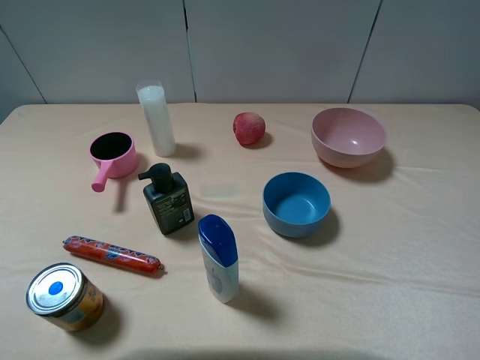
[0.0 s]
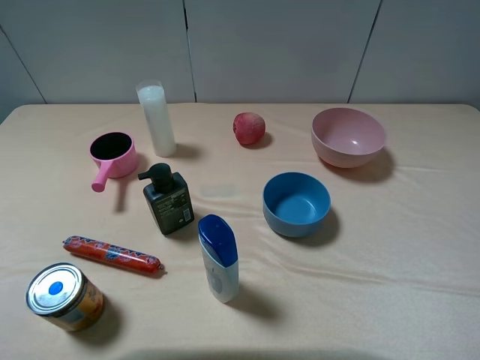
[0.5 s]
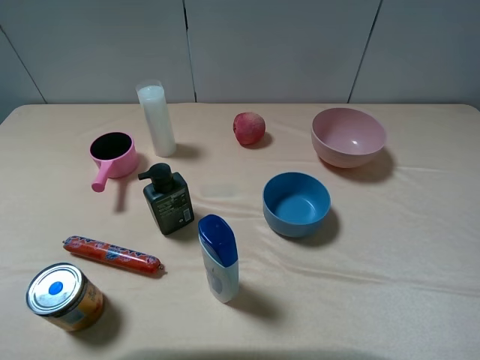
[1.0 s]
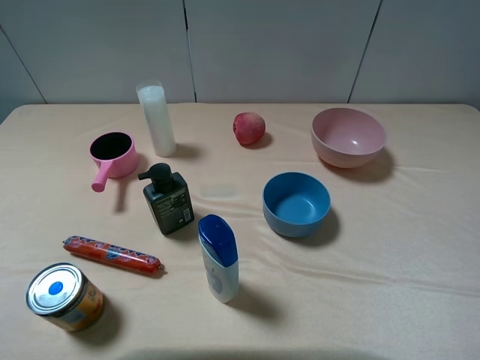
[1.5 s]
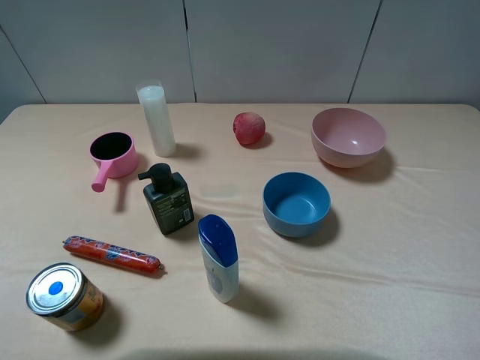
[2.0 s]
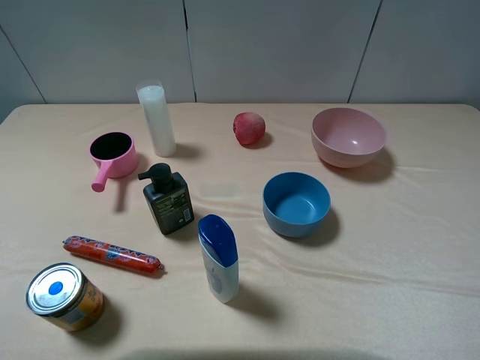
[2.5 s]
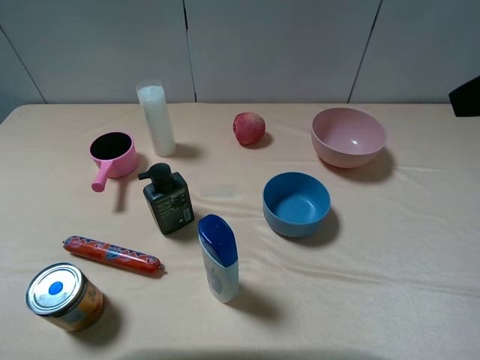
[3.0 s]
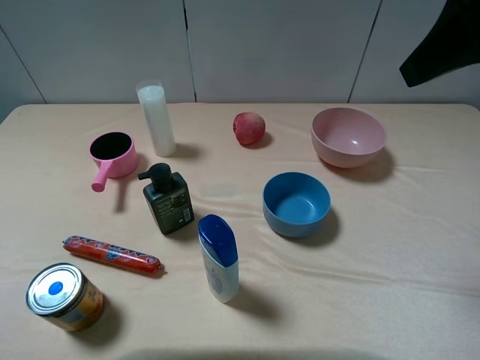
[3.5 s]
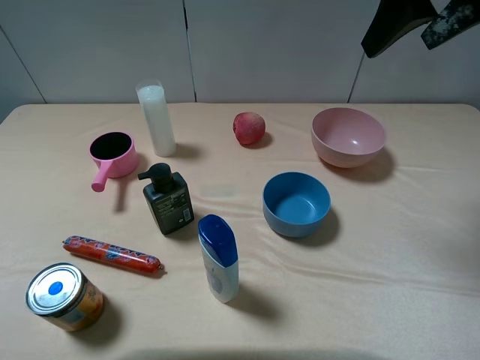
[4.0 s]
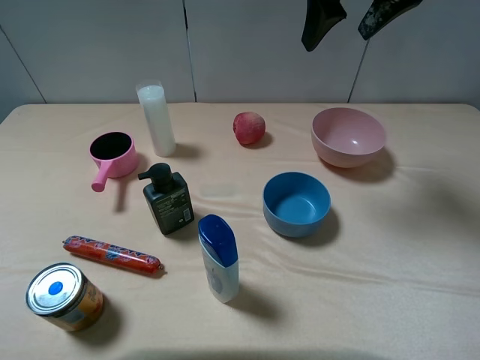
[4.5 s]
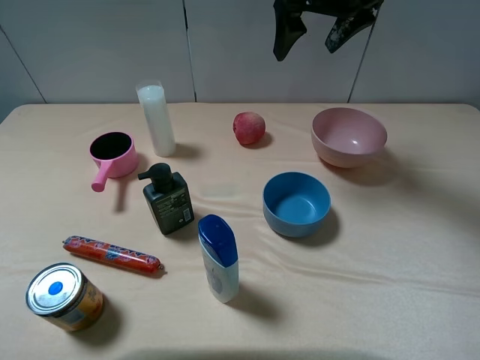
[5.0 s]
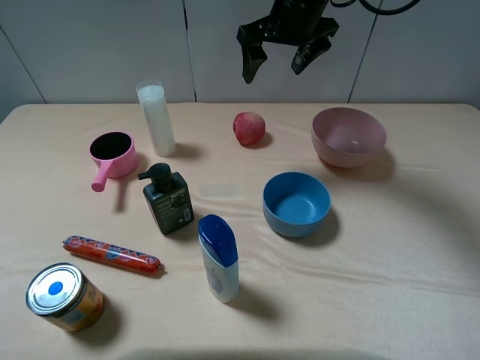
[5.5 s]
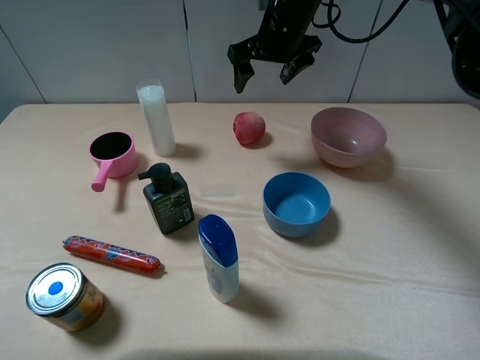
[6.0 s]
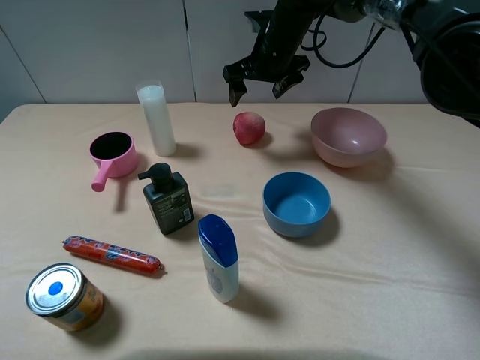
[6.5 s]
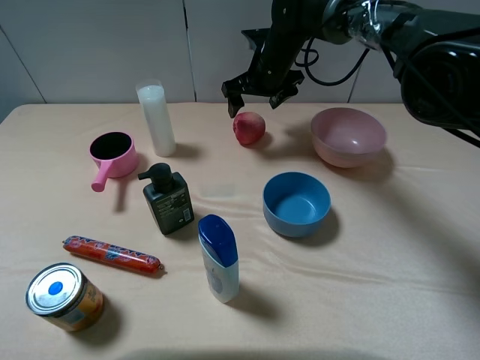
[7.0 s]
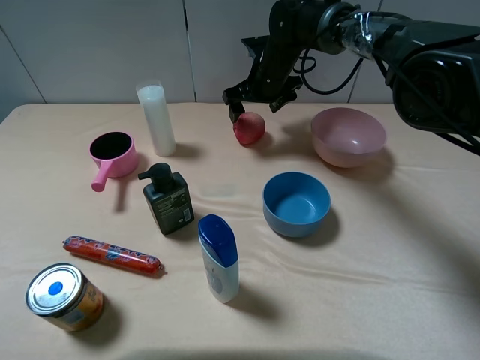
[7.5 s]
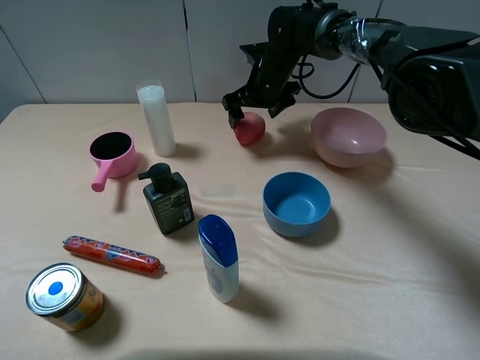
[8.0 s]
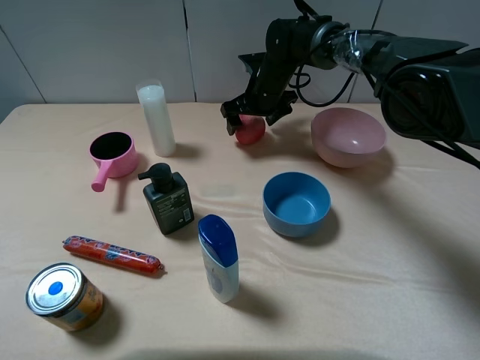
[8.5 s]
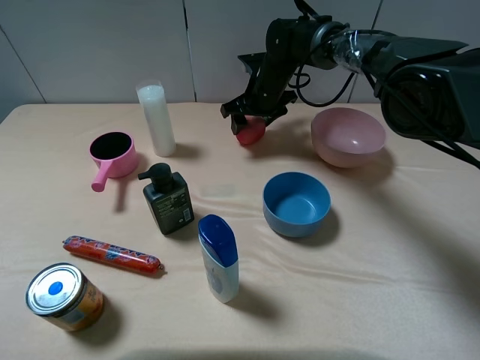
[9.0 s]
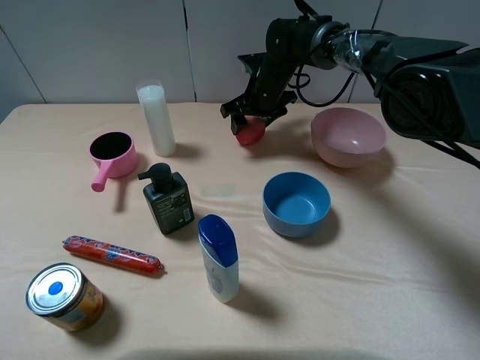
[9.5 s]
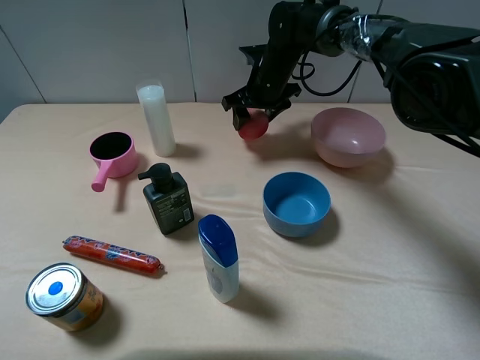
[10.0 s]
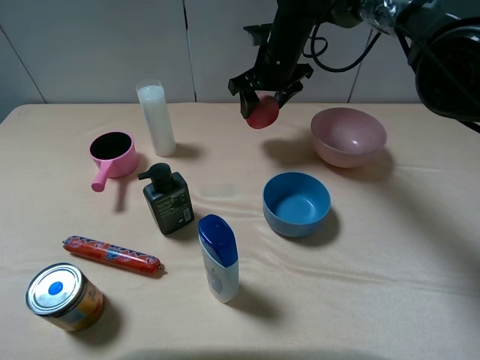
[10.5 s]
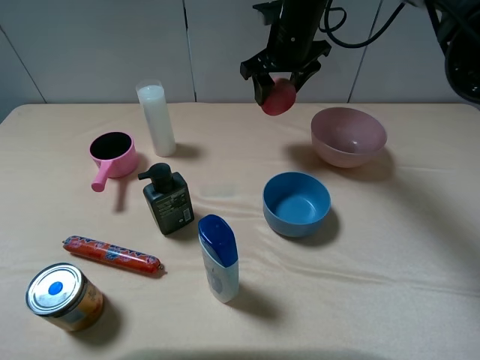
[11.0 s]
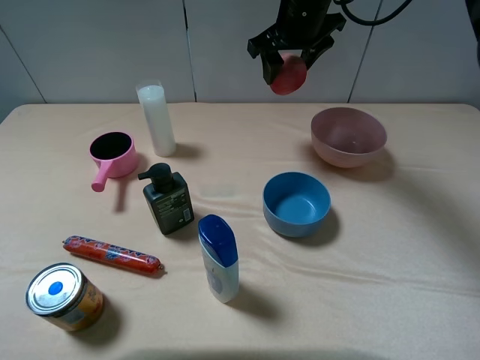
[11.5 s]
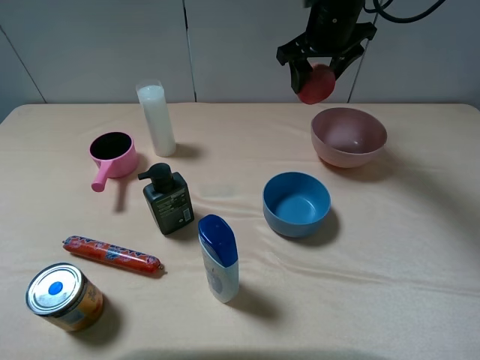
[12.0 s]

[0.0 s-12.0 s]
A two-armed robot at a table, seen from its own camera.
Task of the whole recording: pick up an item with a gripper and place it in a random container on the table.
Step, 0.0 to 9.5 s: Grasp the peach with the right gripper.
2.0 to 4.0 s: The right gripper is displaced forward by some 25 cm.
4.0 to 6.0 s: The right gripper travels forward, to the left and downward by about 25 cm.
6.0 to 8.0 s: The right gripper travels downward by roughly 10 cm.
8.0 to 10.0 s: The right gripper closes.
10.0 to 12.0 s: The right gripper goes about 15 cm upward and to the right.

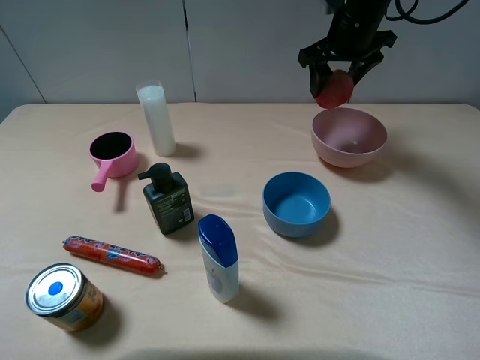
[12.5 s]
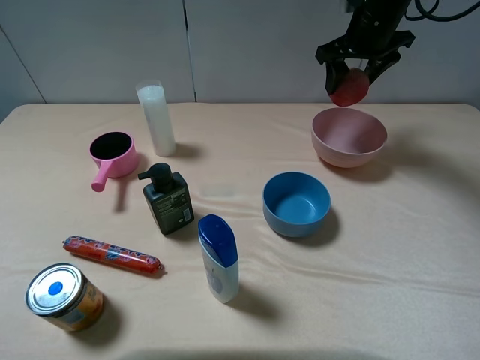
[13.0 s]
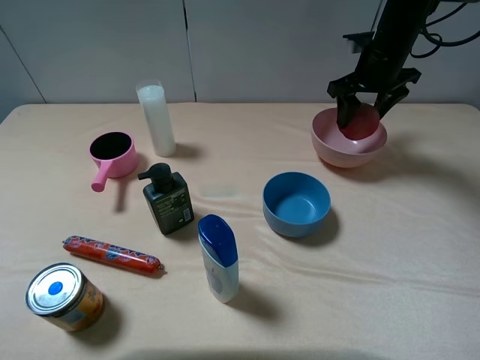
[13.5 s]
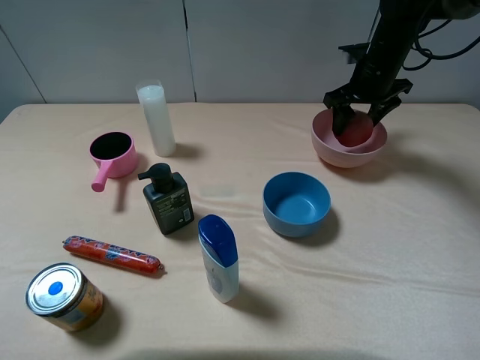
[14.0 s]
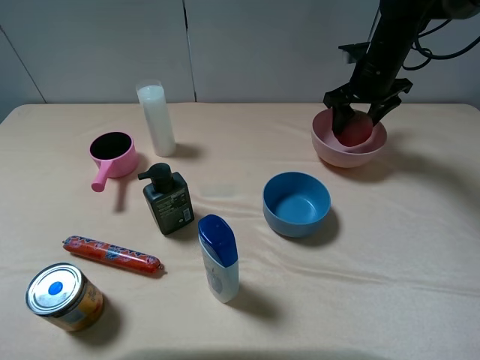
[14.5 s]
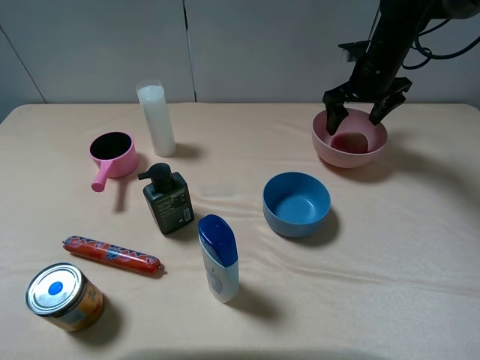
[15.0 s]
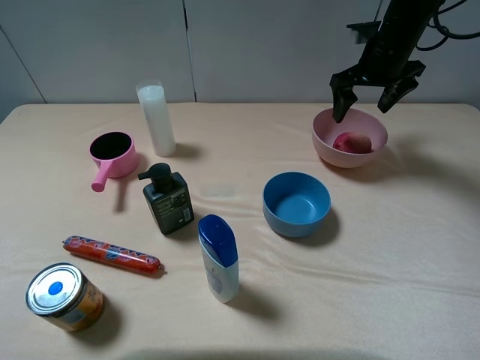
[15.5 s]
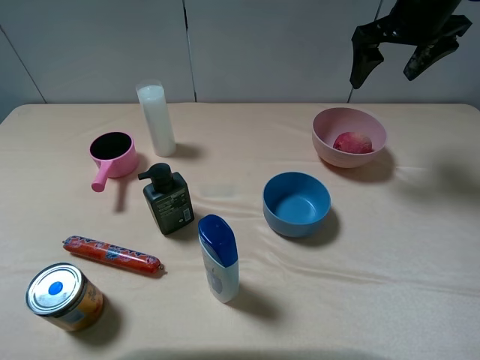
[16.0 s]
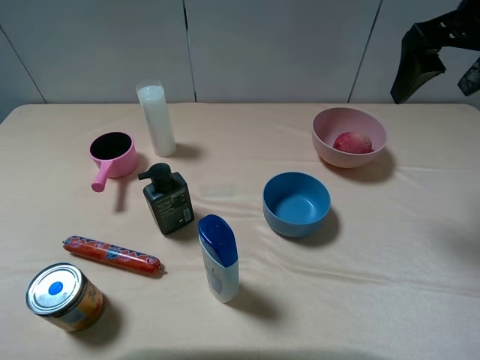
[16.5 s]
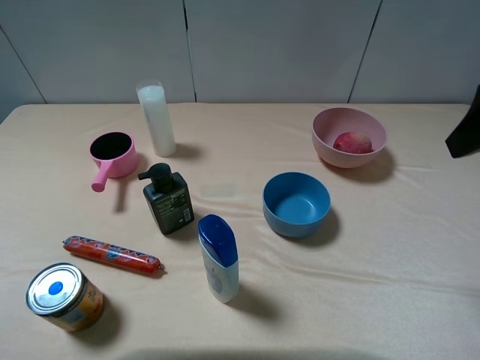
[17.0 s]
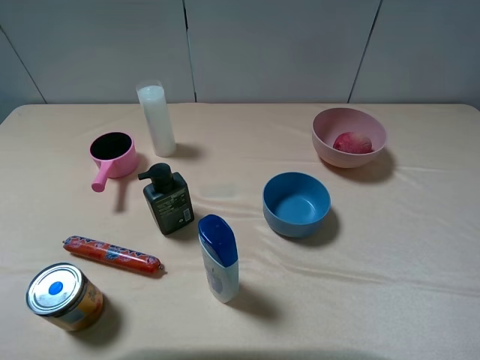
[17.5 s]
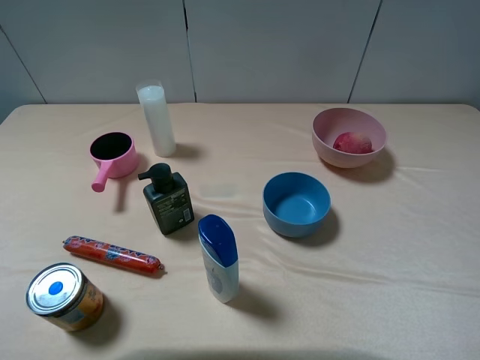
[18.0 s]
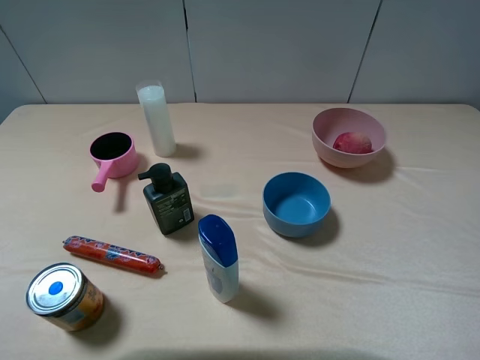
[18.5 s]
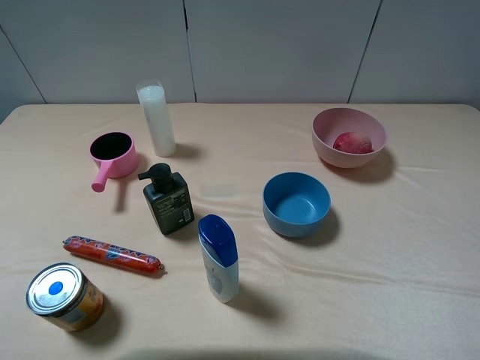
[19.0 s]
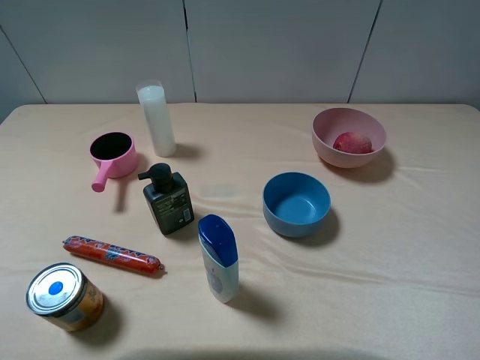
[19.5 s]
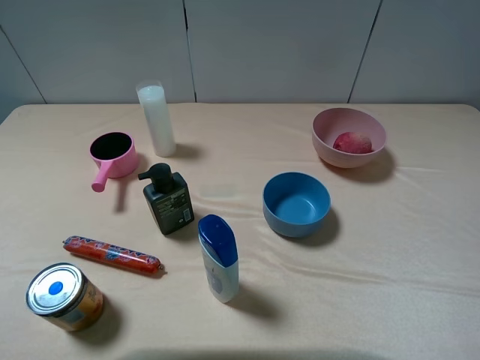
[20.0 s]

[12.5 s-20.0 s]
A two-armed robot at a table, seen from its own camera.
Task of the whole recording: pick up an item with a gripper and place it in a random container on the table.
Step, 12.5 to 15.5 s: Place the peach into the pink bowl with the right gripper.
12.5 to 14.5 s: The right gripper moves downward and to the right, some 10 cm.
14.5 to 16.5 s: The right gripper heads backward and upward, covering some 25 cm, and opens its fingers.
16.5 to 18.0 s: The right gripper moves backward, about 25 cm.

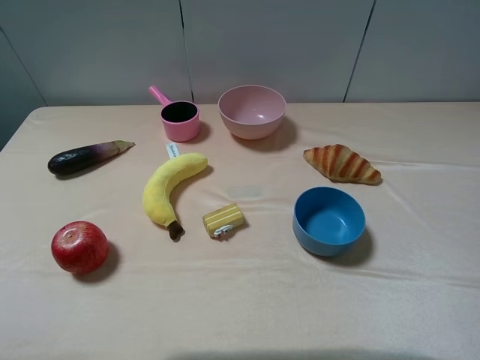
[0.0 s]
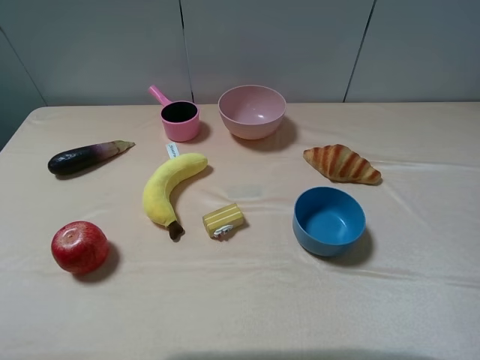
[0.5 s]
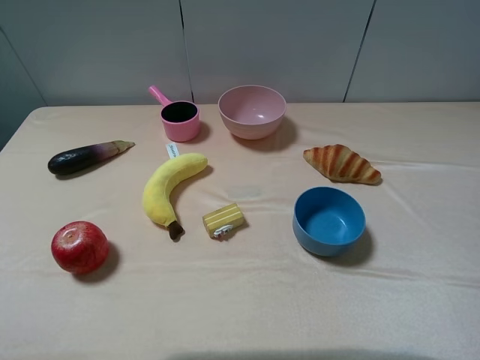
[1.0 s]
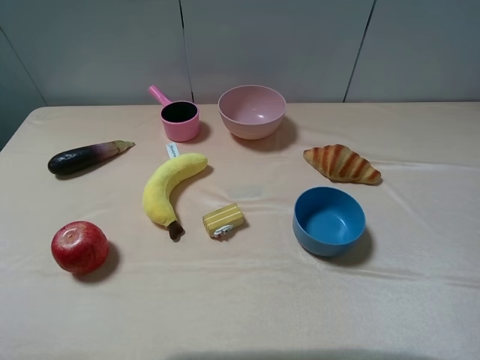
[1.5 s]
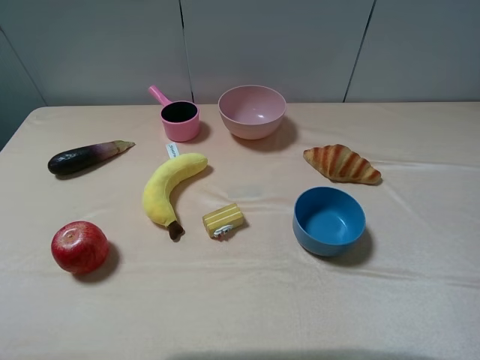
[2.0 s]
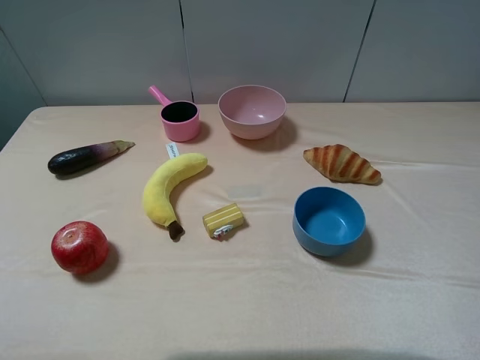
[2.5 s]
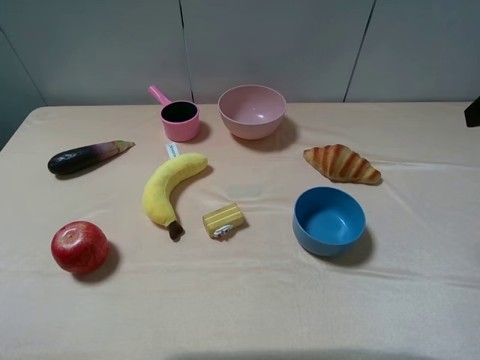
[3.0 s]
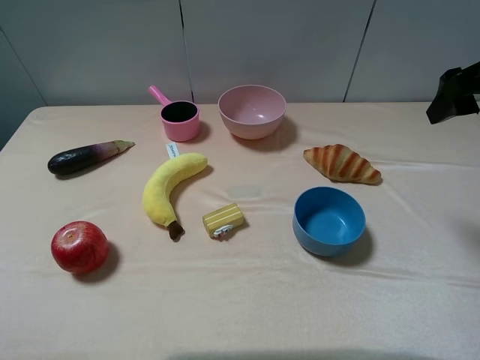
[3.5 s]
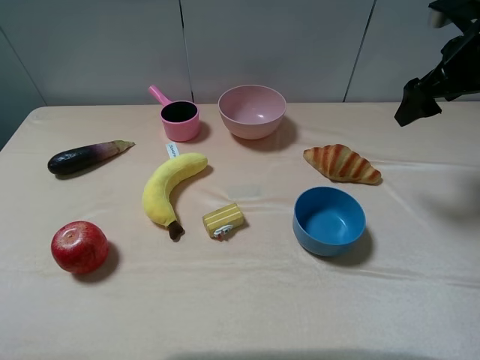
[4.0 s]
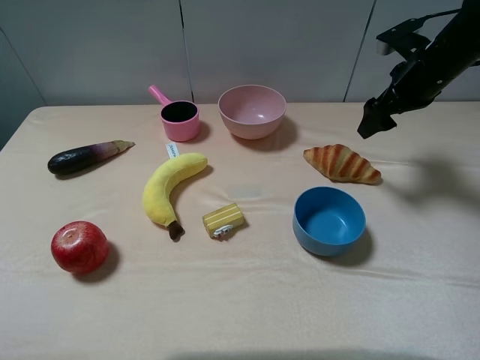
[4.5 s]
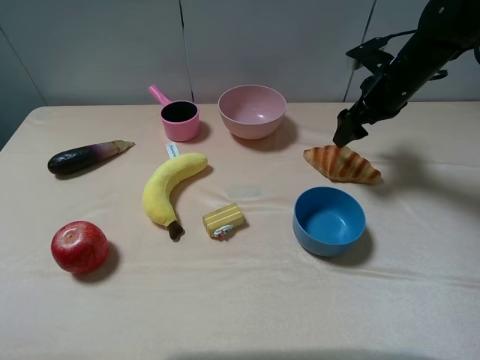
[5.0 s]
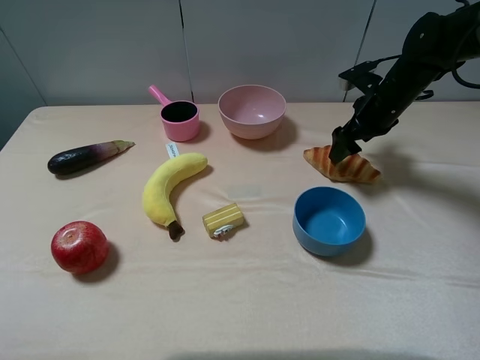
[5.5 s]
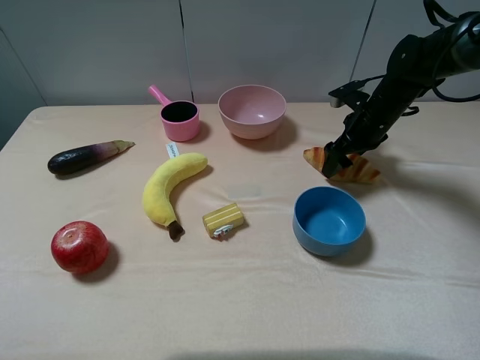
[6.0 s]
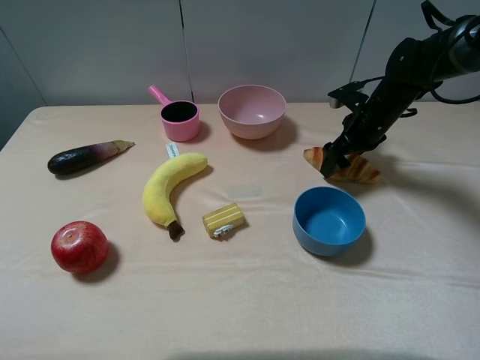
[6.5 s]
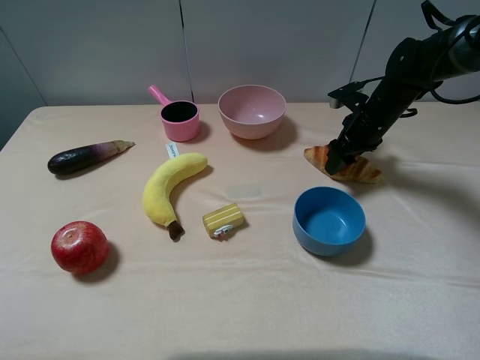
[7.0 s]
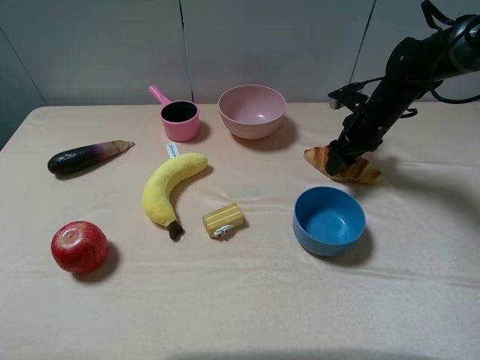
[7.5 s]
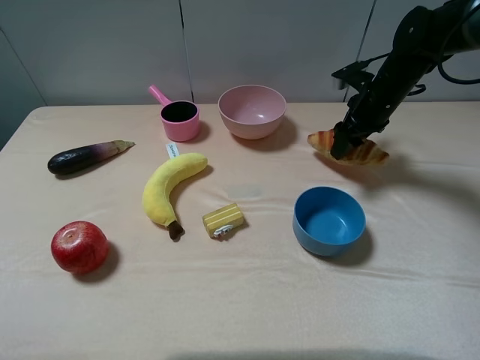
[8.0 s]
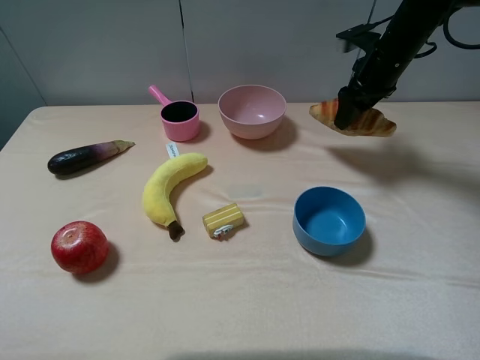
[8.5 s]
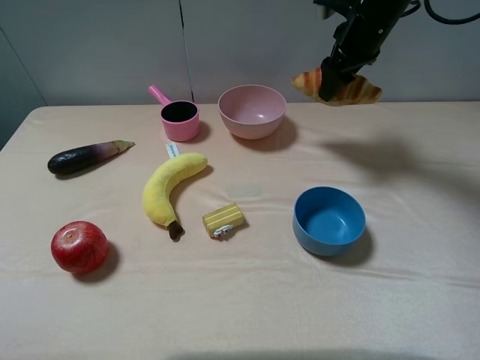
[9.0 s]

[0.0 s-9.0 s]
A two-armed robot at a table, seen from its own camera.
Task of the whole recording: pick up an item with a gripper and place it in a random container on the table.
Step, 0.0 to 7.0 s: Grasp the croissant with the right gripper.
2.0 to 4.5 s: The right gripper moves forward, some 35 cm.
4.5 to 7.0 s: The right gripper shifts approximately 10 cm downward, and closes up.
7.0 to 9.0 s: The right gripper shifts roughly 15 cm upward.
